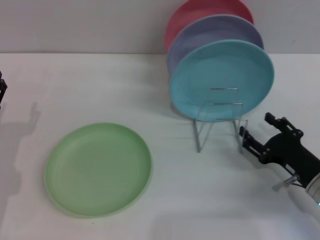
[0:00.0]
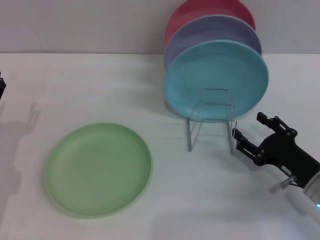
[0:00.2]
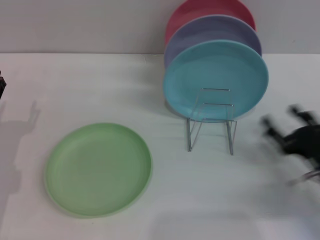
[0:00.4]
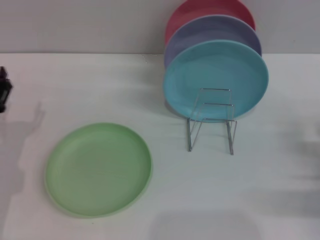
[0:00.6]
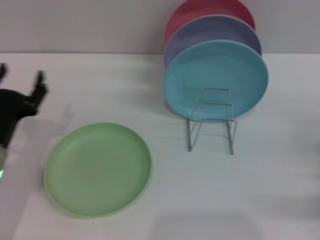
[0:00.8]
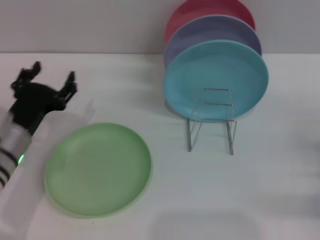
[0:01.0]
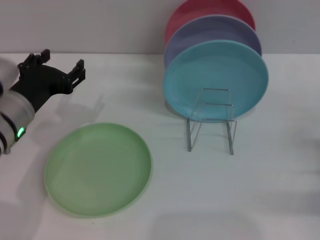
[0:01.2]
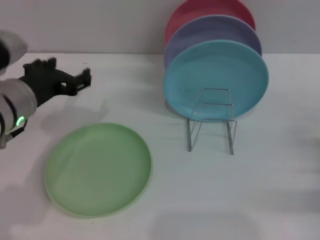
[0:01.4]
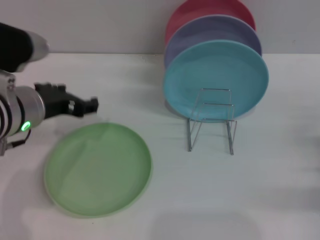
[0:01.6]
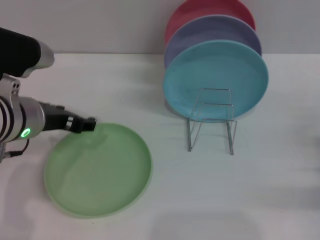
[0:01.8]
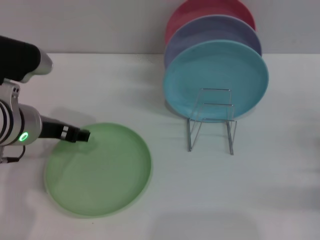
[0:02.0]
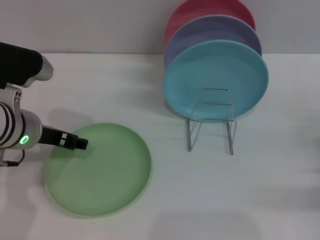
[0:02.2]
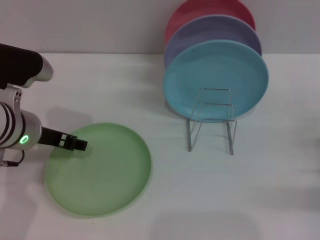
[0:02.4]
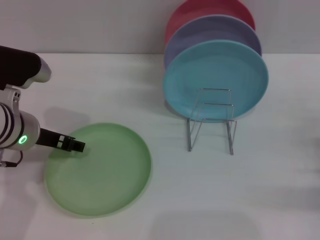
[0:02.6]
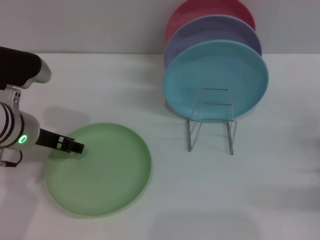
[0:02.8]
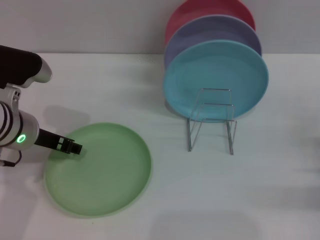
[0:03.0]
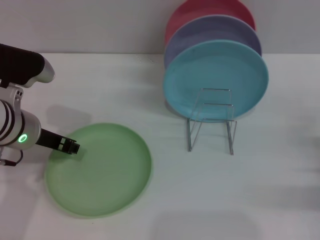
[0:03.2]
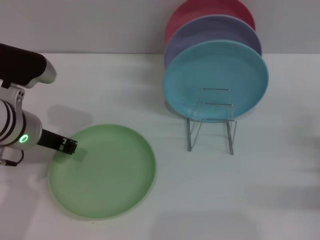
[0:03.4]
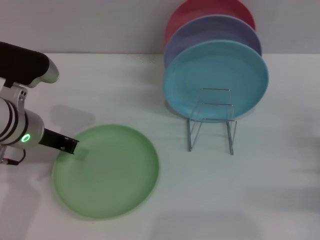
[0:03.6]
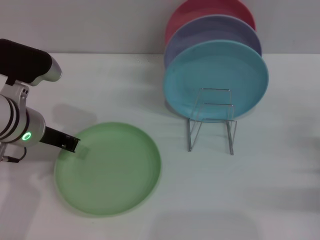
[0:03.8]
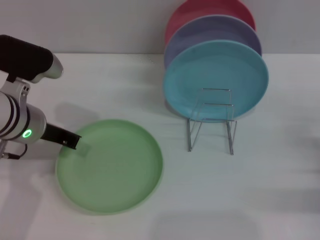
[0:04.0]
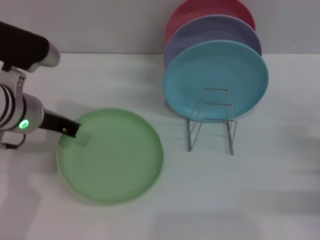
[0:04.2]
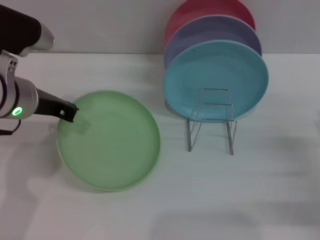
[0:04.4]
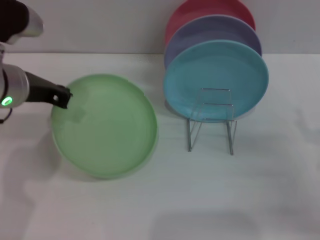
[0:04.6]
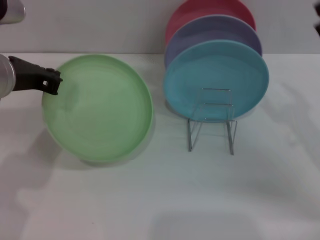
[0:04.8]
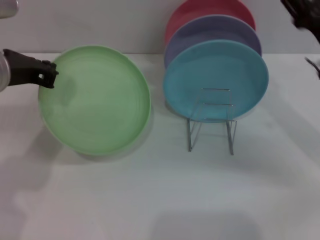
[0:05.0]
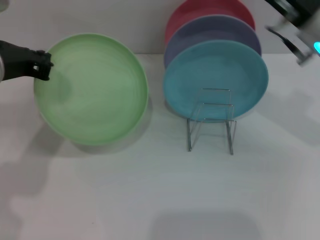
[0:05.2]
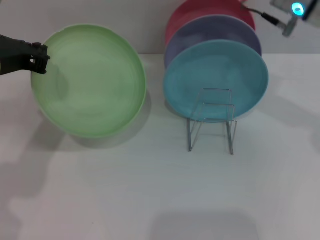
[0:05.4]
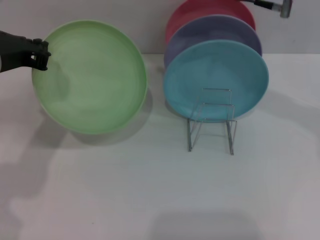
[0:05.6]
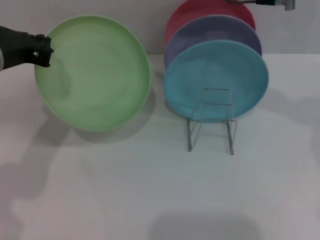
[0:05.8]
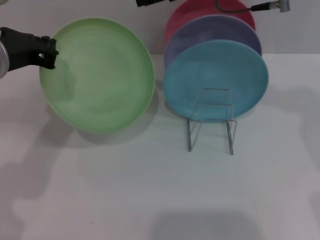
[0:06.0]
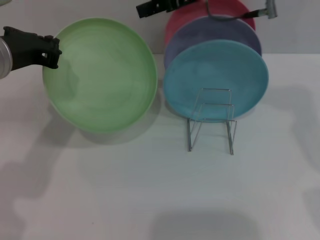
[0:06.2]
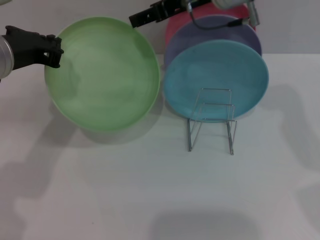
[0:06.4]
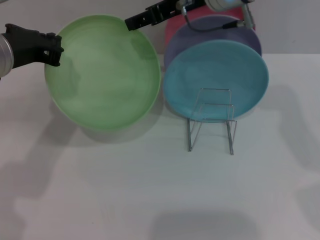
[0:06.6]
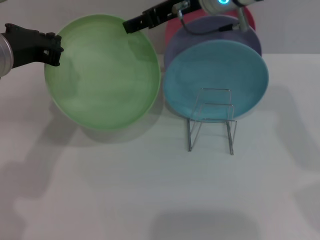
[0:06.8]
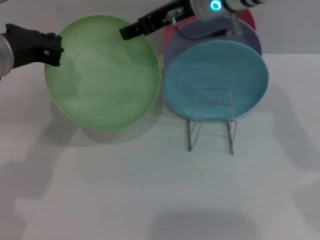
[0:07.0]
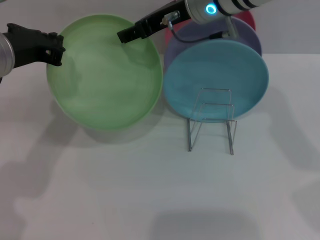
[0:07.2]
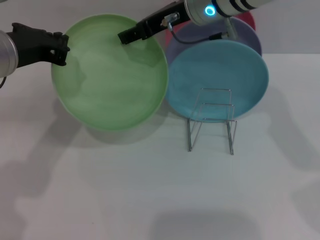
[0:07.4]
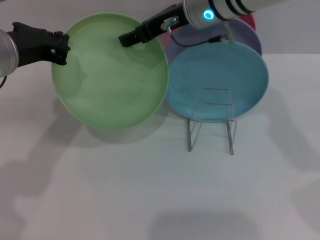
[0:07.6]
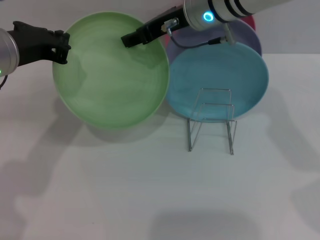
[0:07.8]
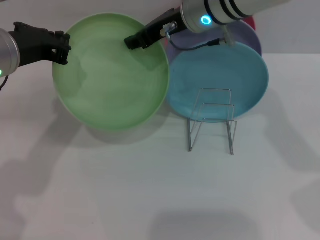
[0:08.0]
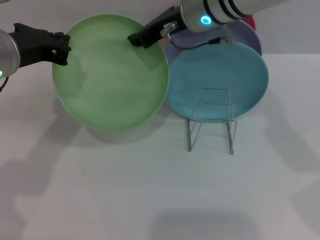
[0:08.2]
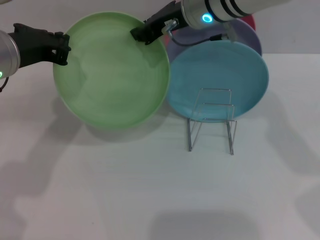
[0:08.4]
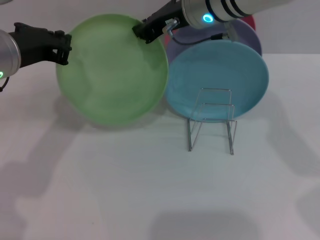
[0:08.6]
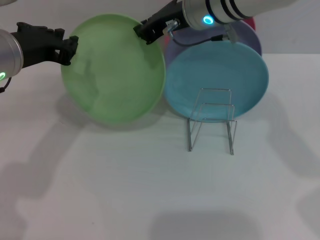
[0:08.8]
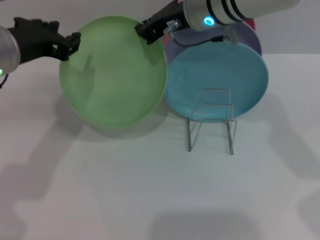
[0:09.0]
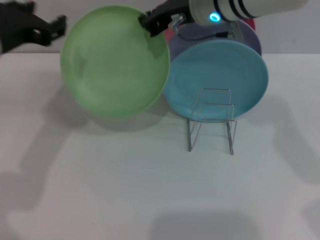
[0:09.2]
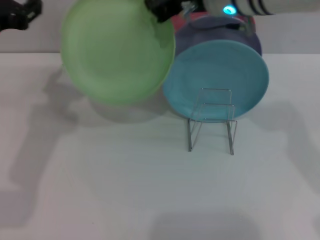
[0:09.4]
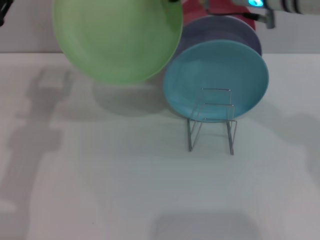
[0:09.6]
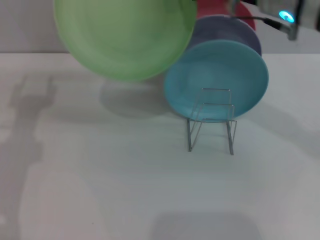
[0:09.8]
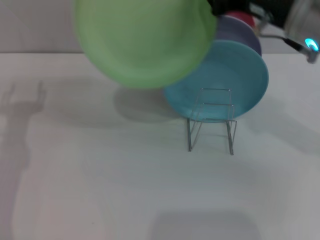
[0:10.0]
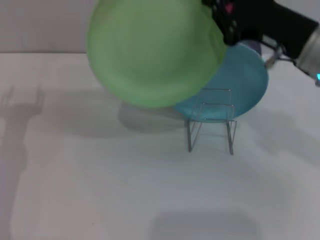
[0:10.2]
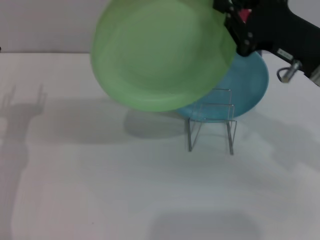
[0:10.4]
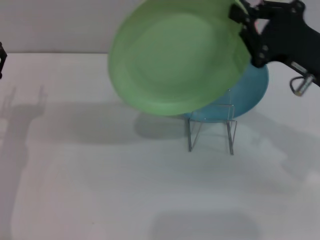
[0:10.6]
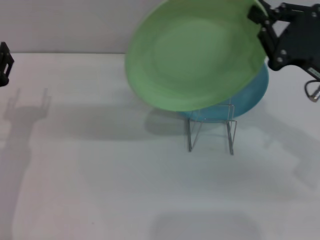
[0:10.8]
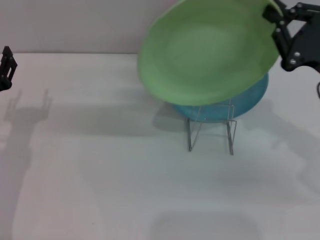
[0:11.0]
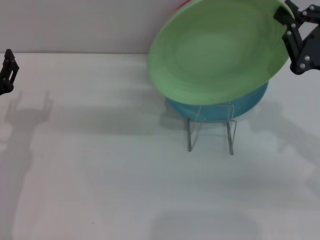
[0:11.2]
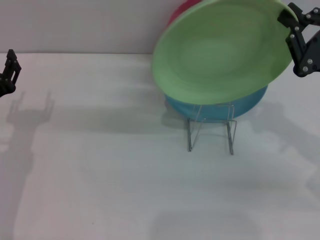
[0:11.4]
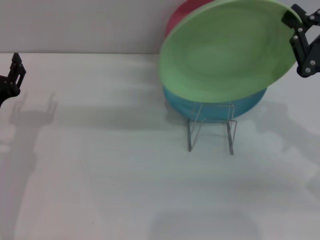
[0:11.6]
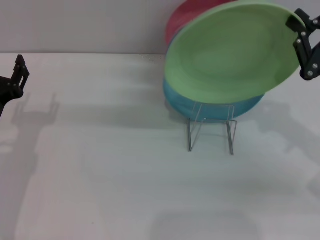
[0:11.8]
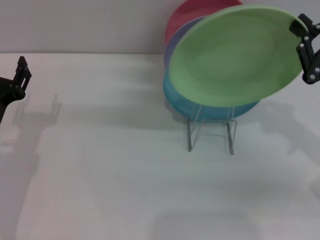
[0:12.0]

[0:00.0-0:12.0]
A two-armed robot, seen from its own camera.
Task of the whole recording: Grip the plate with one hand, pass it to the other, then set it on the shelf.
Step, 0:00.0 to 0:04.8: Pick up the plate with the left gripper.
Step, 0:05.0 to 0:09.0: Pass the plate from the left gripper to the right gripper.
0:00.0 to 0:01.6: The left gripper is displaced upward and to the right by some 15 cm, while the right gripper goes roughly 10 cm to the right.
0:01.6 to 0:03.0: The left gripper moves some 5 cm.
0:03.0 to 0:04.4: The left gripper changes place by roughly 5 cm, and closes its fingers.
0:04.4 to 0:06.0: The left gripper shifts by some 5 cm. The right gripper moves upward, to the left and forward, about 35 cm.
0:06.0 to 0:07.6: The right gripper moves downward and to the left, roughly 10 cm.
0:07.6 to 0:09.0: The left gripper opens its fingers; the right gripper closes.
0:09.0 to 0:10.4: The right gripper heads to the right and backward, covering roughly 20 cm, while the left gripper heads downward and to the left, covering roughly 15 cm, and opens.
0:10.4 to 0:12.0: The right gripper shifts some 10 cm to the right and downward.

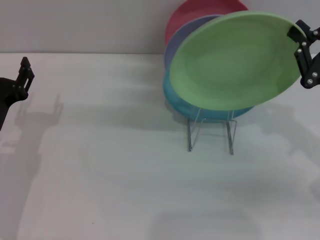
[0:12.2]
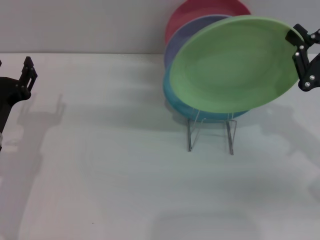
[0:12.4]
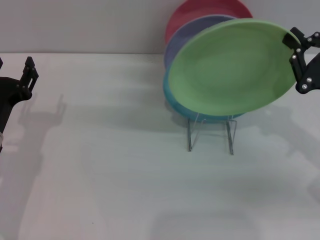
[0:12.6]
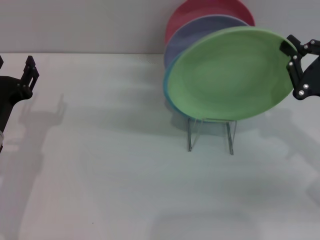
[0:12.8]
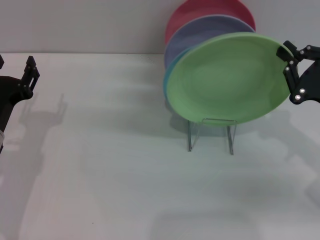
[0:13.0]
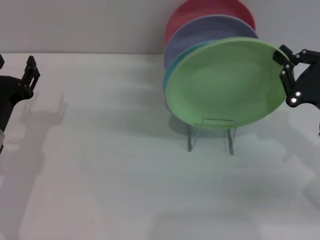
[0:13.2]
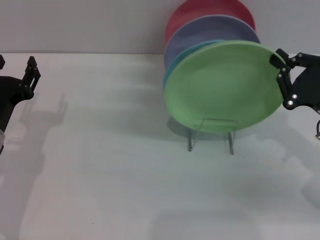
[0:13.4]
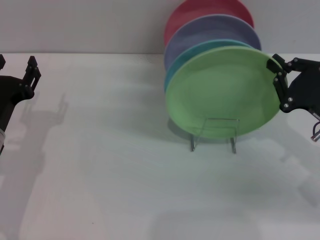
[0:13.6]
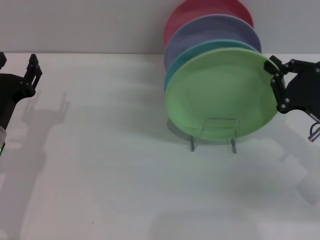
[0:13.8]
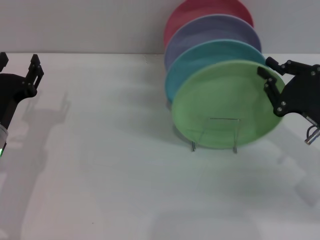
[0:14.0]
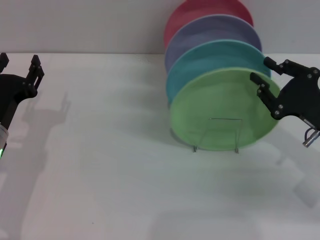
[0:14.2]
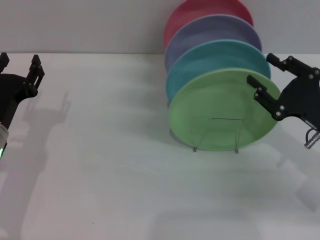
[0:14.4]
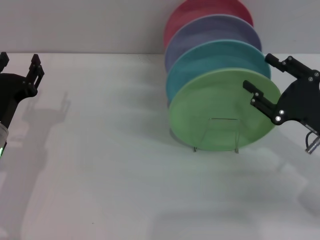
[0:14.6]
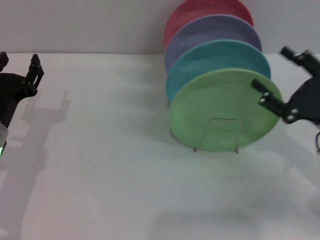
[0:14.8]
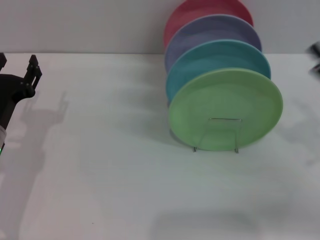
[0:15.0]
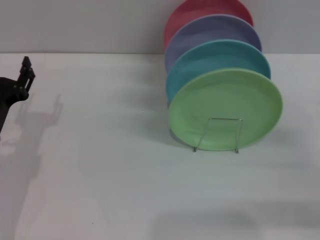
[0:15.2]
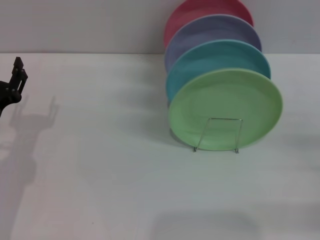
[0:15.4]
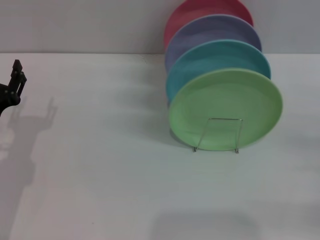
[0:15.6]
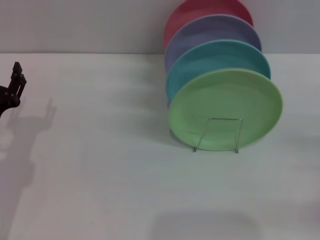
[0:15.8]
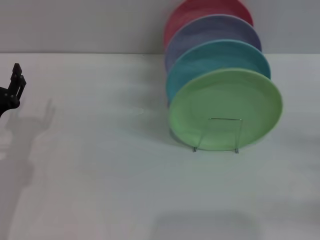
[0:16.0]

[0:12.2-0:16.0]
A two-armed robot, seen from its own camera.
Task of the whole recording: Grip the plate with one hand, pass it to the other, then set it on the shelf.
Step, 0:12.2 to 0:14.6: Place the plate on the shelf with the right gripper.
0:12.2 to 0:13.4: The grippers make only small movements.
0:13.4 to 0:14.8: The right gripper opens up.
0:14.8 to 0:16.0: The right gripper moves to the right, about 10 cm.
